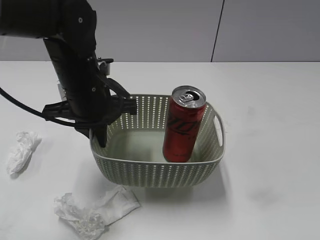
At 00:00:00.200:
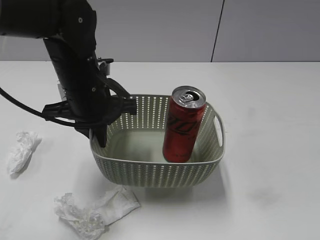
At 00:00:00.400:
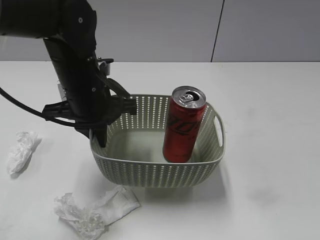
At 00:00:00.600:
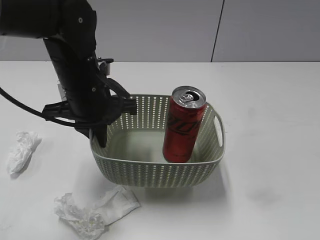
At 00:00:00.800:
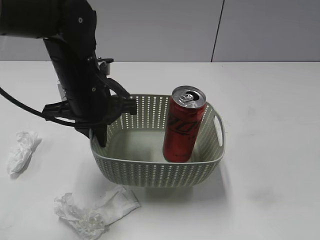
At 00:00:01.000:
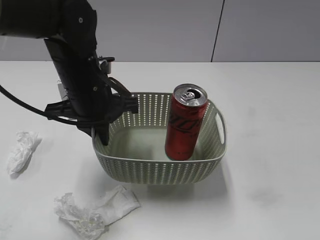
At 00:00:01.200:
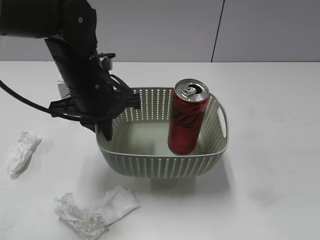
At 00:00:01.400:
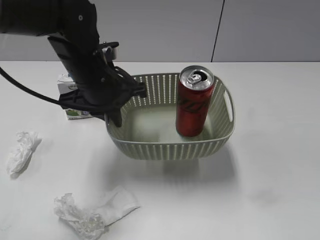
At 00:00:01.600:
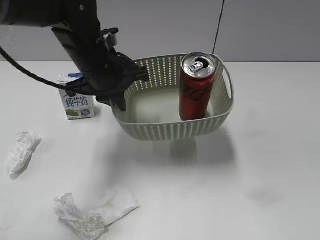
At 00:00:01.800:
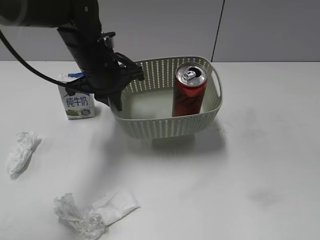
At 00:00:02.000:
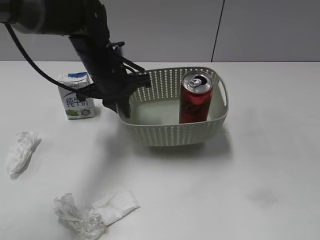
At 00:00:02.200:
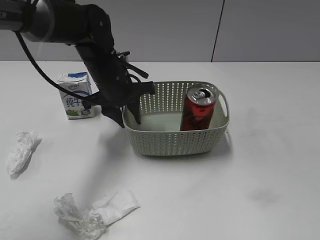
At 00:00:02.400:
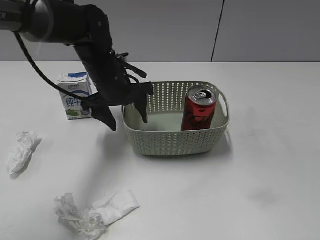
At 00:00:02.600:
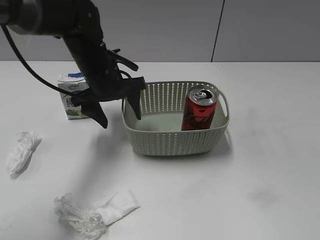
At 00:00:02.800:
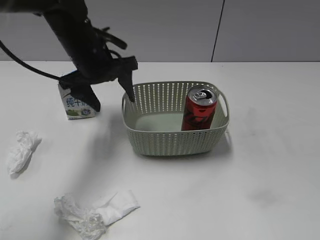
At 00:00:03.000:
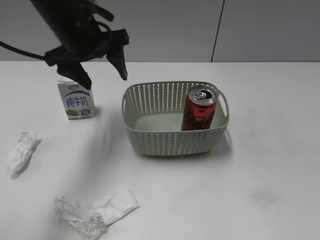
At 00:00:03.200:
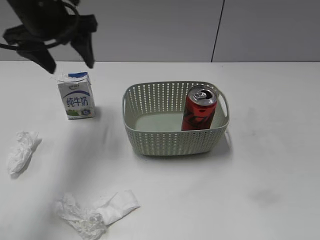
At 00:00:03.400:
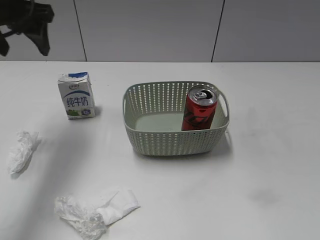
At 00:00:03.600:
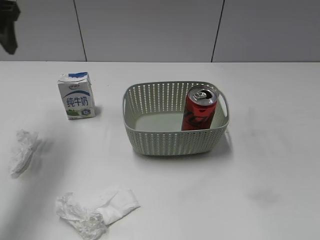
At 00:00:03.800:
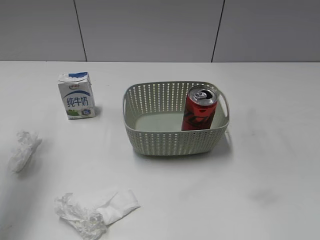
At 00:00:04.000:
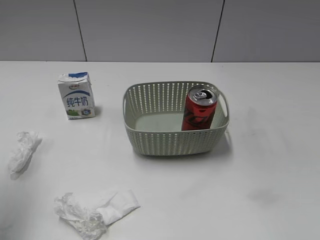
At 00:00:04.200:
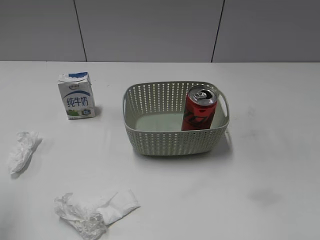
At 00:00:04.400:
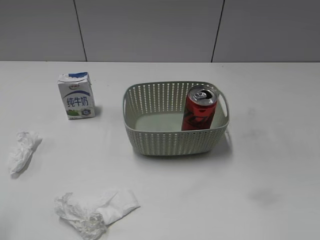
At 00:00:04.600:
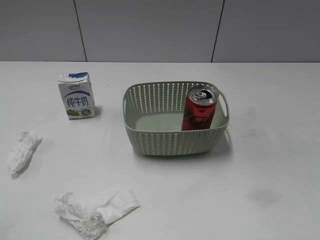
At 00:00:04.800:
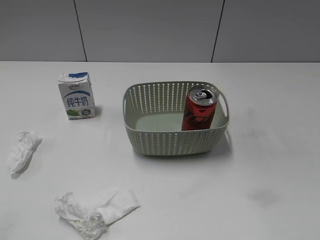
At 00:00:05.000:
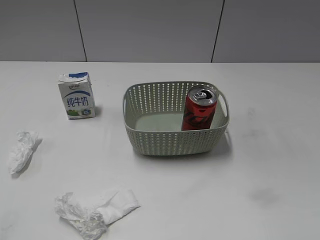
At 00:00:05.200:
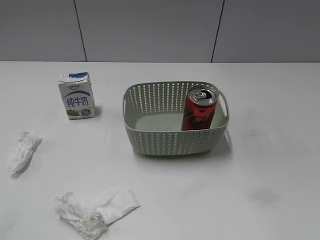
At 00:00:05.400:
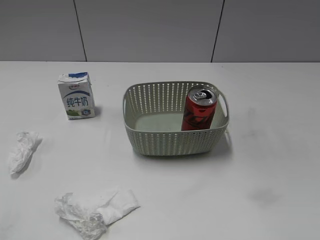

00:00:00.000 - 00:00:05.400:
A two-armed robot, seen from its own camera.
Step, 00:00:00.000 - 00:00:02.200: Place the basket on the table with left gripper.
00:00:00.000 - 00:00:01.400: The right gripper goes roughly 10 cm backward.
00:00:01.400 - 00:00:02.800: The left gripper travels forward by roughly 5 cm, and opens its fingers.
00:00:02.800 - 00:00:04.000: The left gripper heads to the left, backward and upward, covering approximately 25 cm.
00:00:04.000 - 00:00:05.400: The left gripper travels backward by approximately 25 cm.
